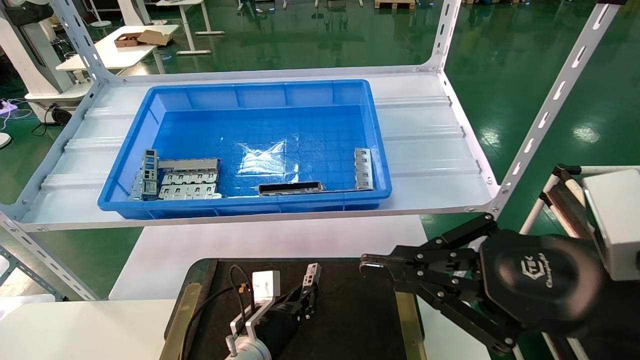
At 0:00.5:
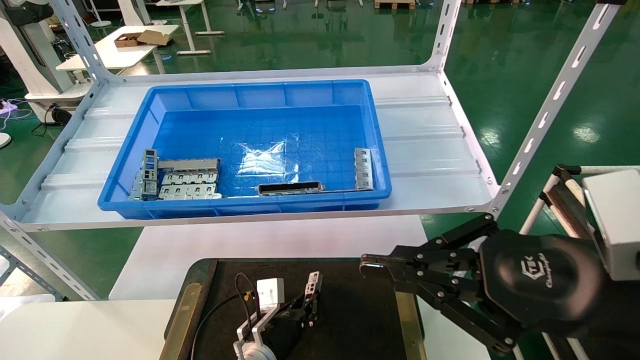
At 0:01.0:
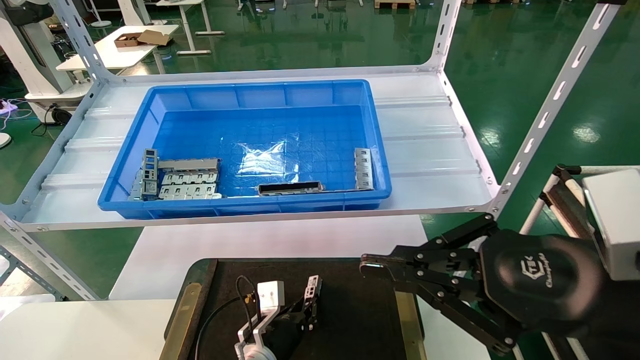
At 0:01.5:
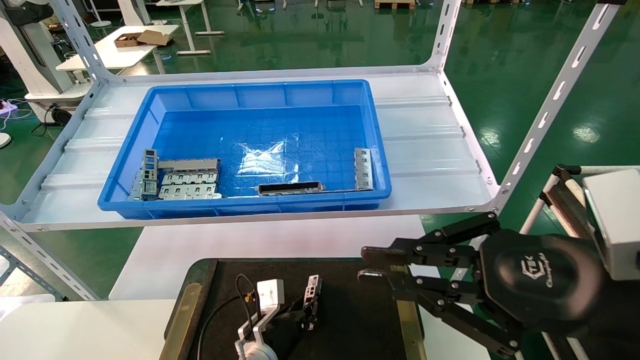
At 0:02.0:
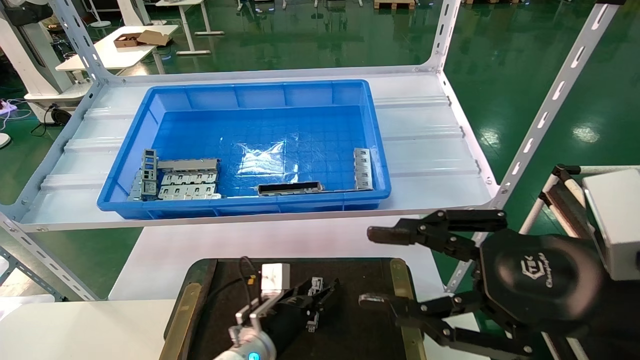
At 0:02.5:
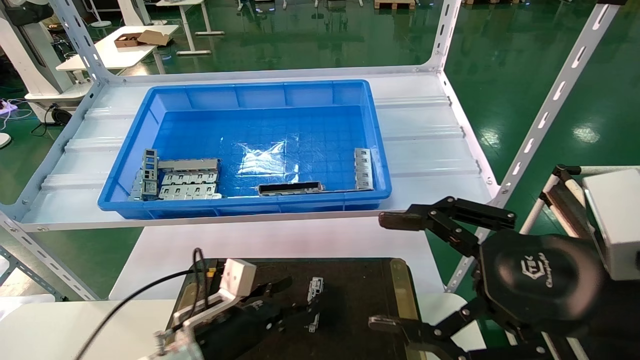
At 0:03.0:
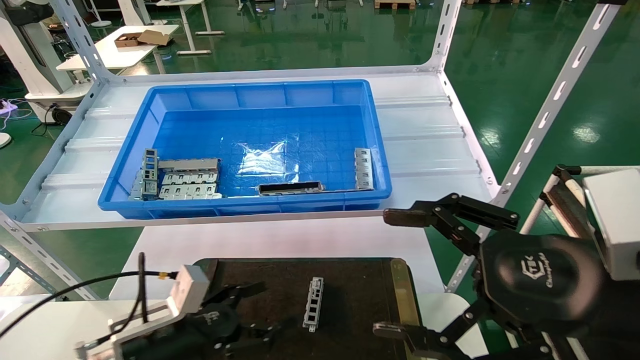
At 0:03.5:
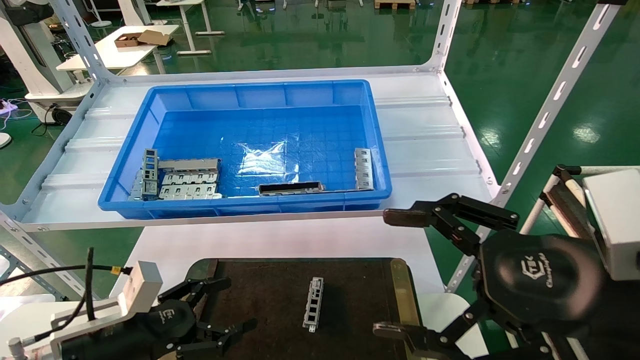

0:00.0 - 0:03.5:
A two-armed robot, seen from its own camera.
Task of the whole recording: Grasp the part with one hand and place it on the black container.
0:00.0 - 0:02.0: The right gripper opens up. Meanwhile the left gripper opens its fingers.
0:02.0 - 0:03.5: The right gripper opens; the left gripper travels to the left, backward and upward by about 25 cm, and opens its fingers.
